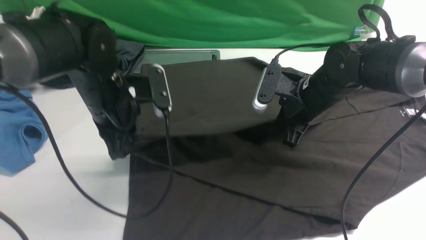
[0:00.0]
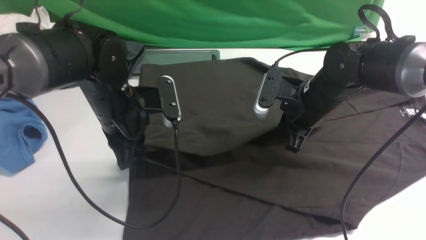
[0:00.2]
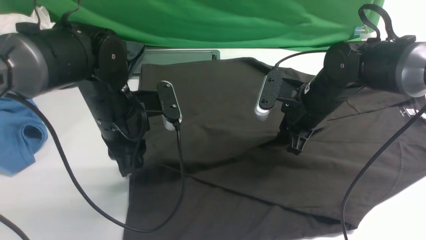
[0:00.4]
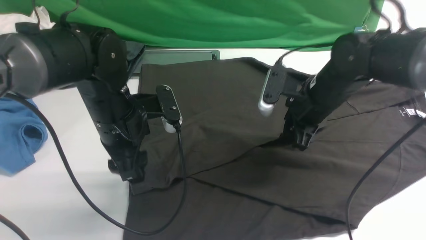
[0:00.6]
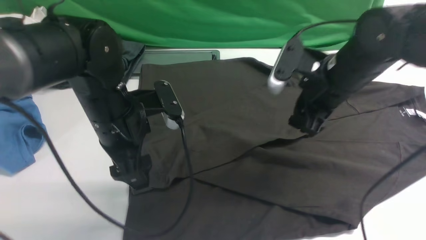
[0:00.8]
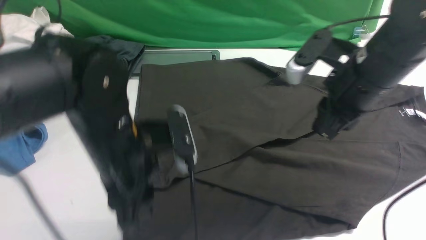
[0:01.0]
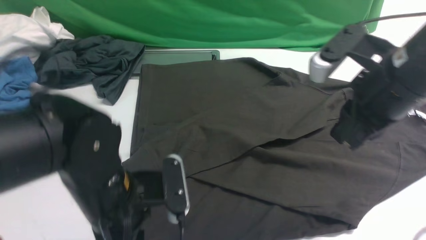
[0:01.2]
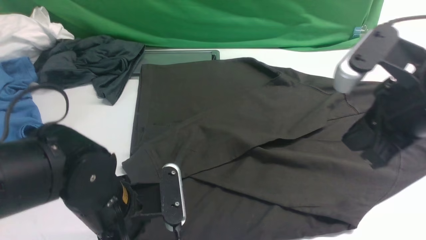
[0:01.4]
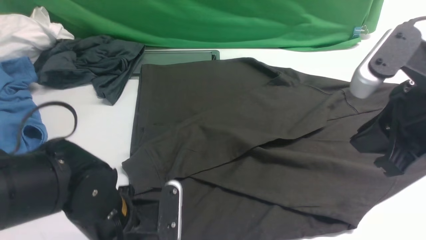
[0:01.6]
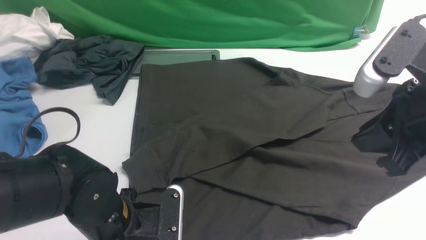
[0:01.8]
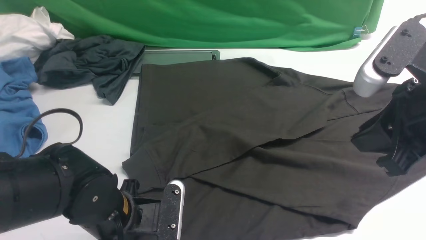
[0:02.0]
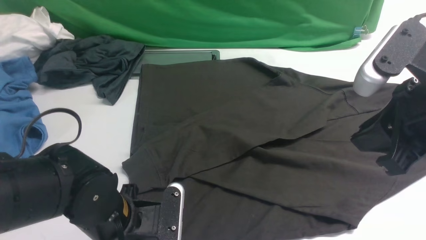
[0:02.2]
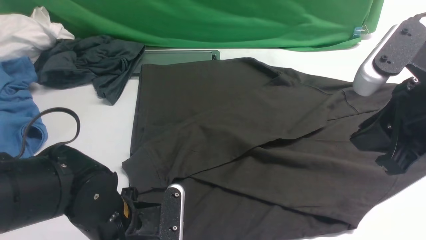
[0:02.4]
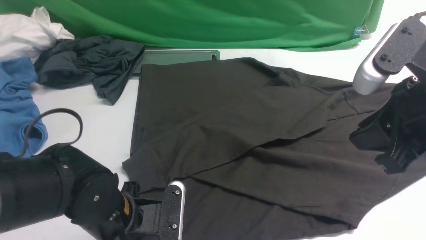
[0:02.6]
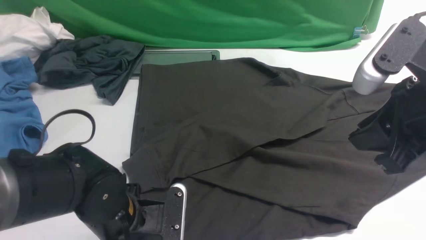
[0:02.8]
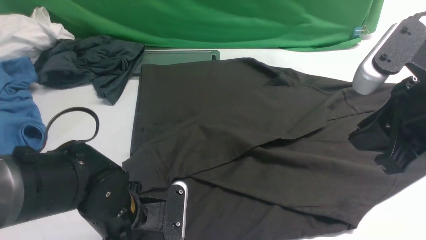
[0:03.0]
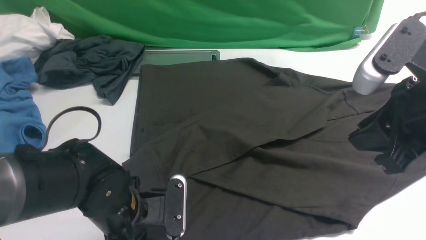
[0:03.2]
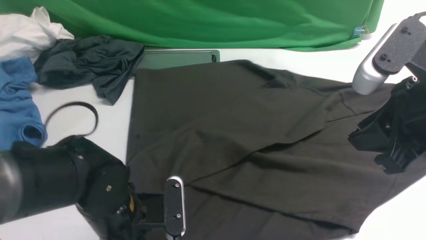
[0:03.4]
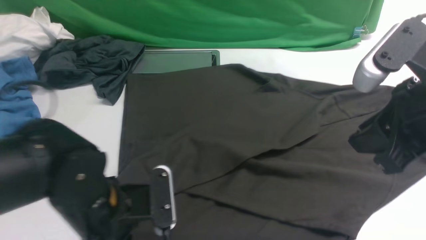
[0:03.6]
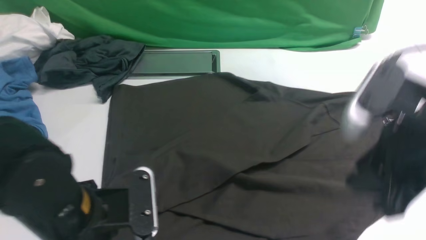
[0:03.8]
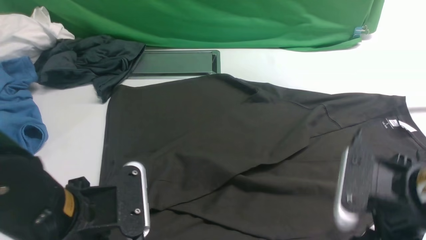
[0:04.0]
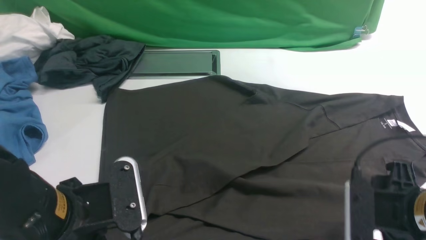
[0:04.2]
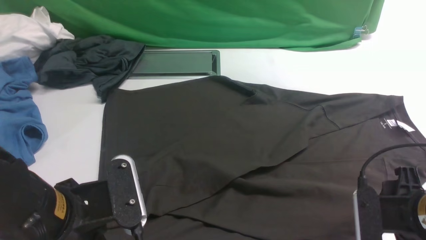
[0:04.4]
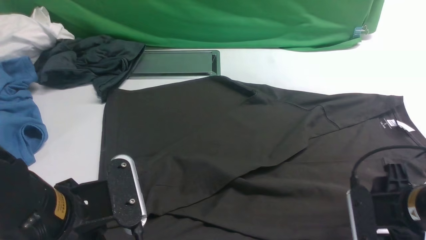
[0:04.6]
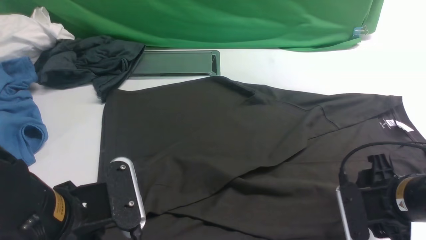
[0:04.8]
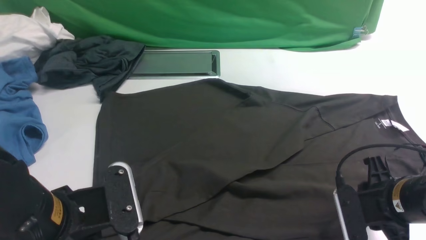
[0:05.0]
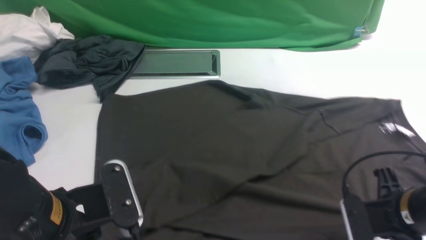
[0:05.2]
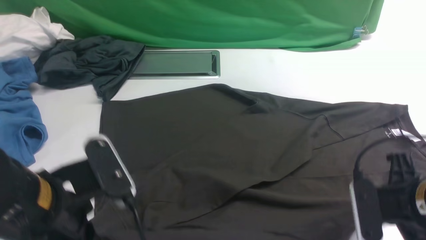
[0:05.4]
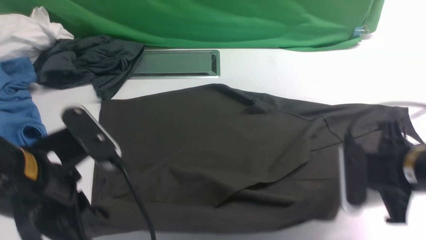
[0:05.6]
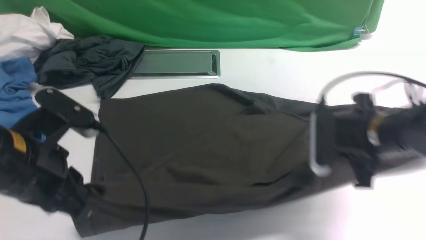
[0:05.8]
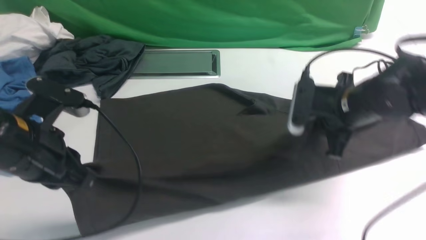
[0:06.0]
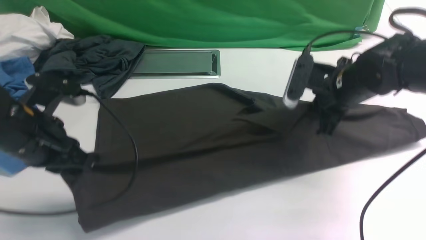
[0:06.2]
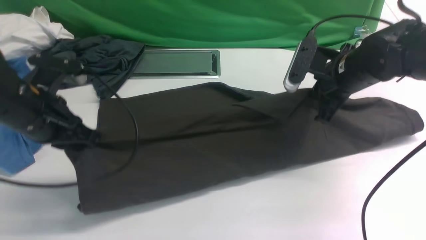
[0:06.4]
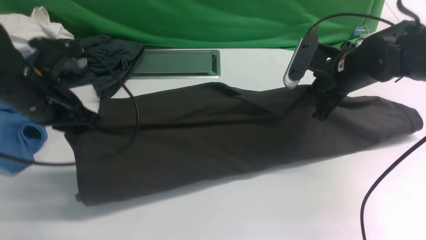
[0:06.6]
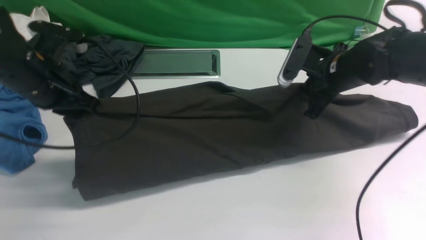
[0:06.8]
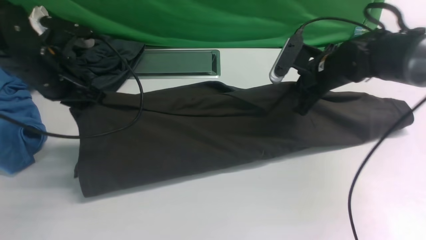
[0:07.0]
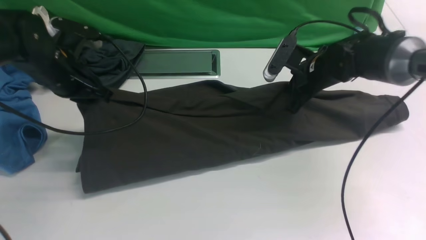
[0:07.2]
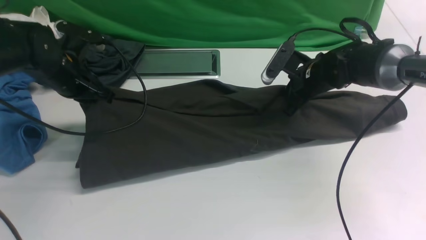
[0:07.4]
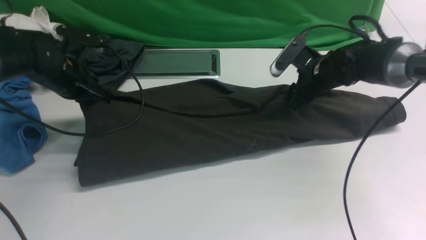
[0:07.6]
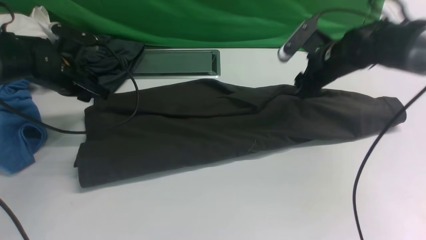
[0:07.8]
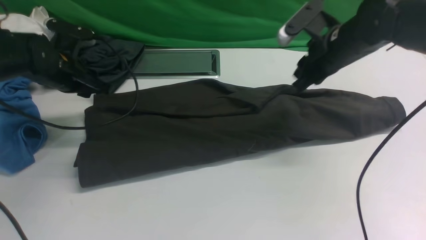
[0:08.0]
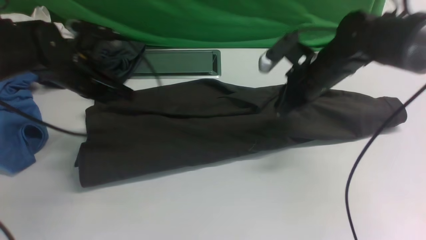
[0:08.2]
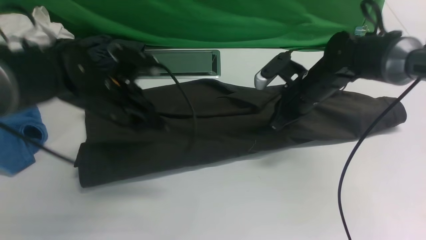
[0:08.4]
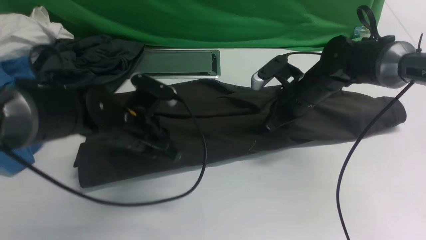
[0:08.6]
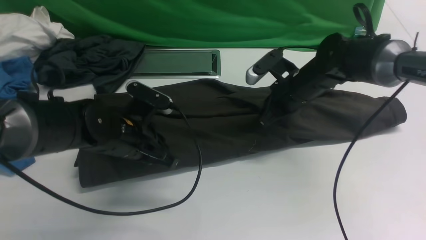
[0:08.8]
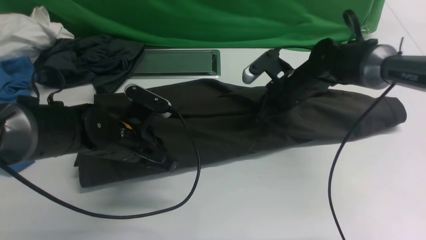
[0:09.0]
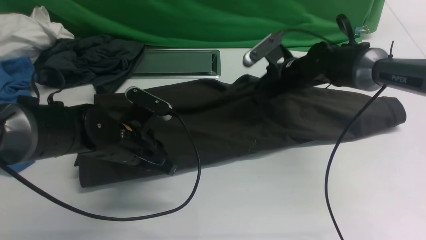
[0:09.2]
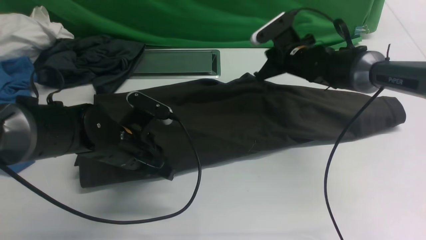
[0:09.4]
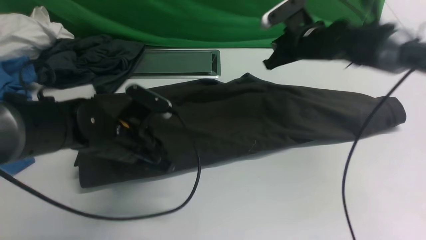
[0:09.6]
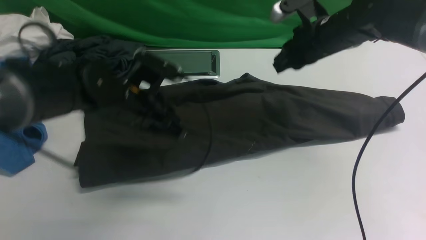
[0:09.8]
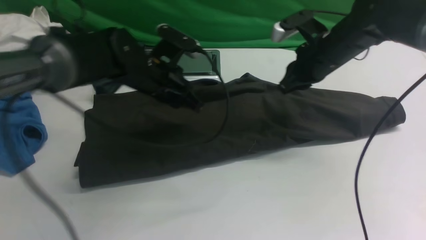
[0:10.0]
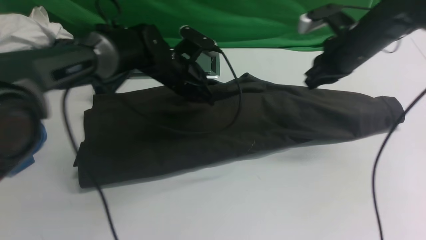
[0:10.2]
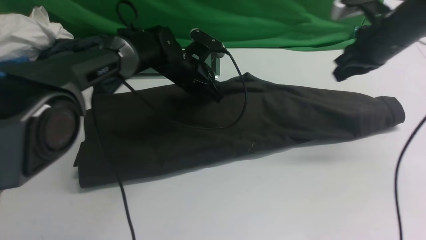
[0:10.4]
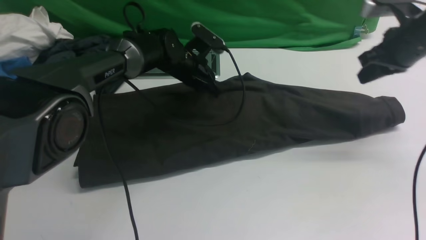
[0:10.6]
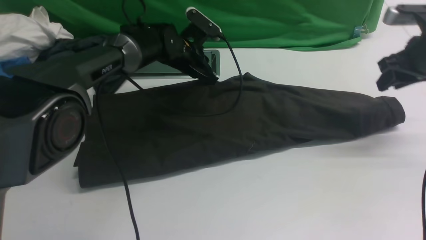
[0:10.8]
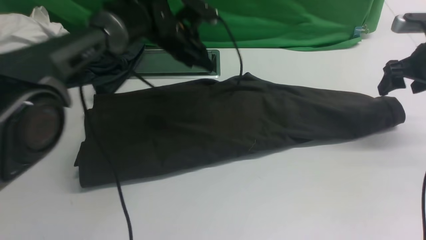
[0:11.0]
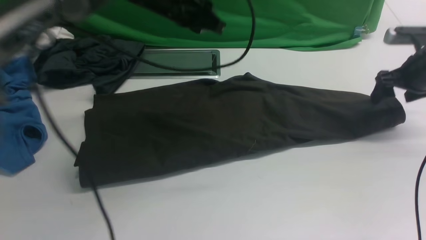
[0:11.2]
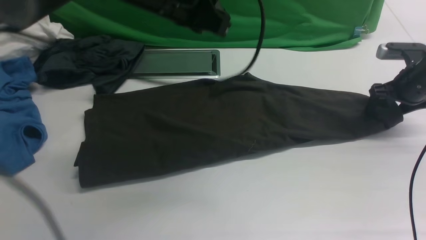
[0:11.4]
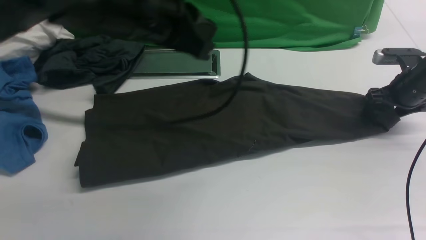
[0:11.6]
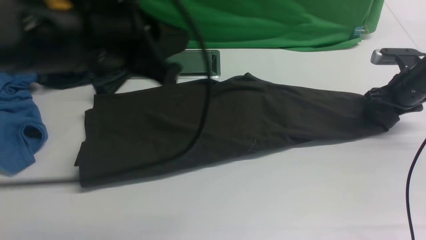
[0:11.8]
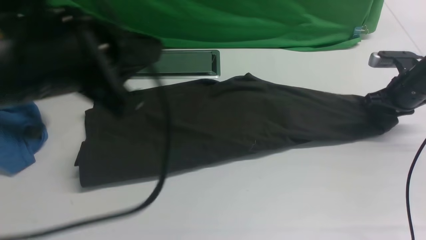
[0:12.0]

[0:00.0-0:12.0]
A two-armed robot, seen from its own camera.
Step, 0:01.0 to 0:05.2: use both arms simultaneously to clamp the lower edge of the clothing fabric.
Step, 0:05.6 to 0:10.8: use both arms to drag the lower edge of the fabric forward and fold it over the upper edge.
0:00.0 to 0:01.6: The left gripper is displaced backward and downward by about 15 cm, and opens its fingers. The right gripper is displaced backward and upward by approximately 25 cm.
0:01.6 to 0:03.0: The left gripper closes up.
0:03.0 to 0:04.4: The right gripper travels downward by roughly 15 cm, and opens up. Meanwhile the left gripper is displaced upward and backward by approximately 10 cm, and closes up.
0:04.4 to 0:06.0: The right gripper is displaced forward by about 15 cm, and closes. Meanwhile the left gripper goes roughly 10 cm forward and to the left.
0:06.0 to 0:07.6: The left gripper shifts about 20 cm forward. The right gripper shifts about 10 cm forward, and opens up.
0:07.6 to 0:09.0: The right gripper moves to the left, roughly 5 cm, and closes its fingers. The left gripper goes roughly 15 cm to the right and backward, and closes its fingers.
0:09.0 to 0:10.4: The right gripper heads to the right and upward, covering roughly 20 cm. The left gripper goes roughly 20 cm forward.
0:10.4 to 0:12.0: The right gripper heads to the right and downward, covering roughly 15 cm, and opens, then closes once more. Meanwhile the left gripper moves backward and upward, approximately 40 cm.

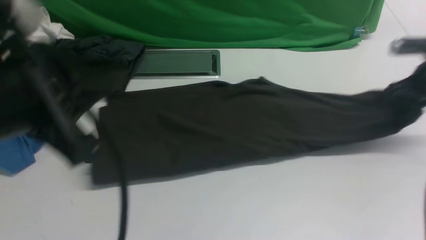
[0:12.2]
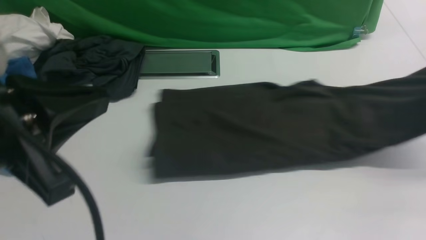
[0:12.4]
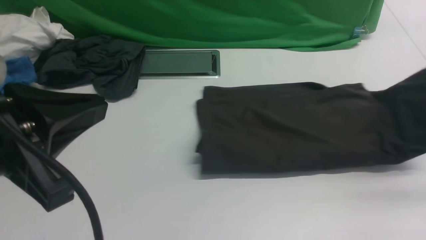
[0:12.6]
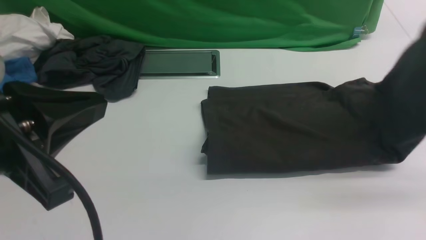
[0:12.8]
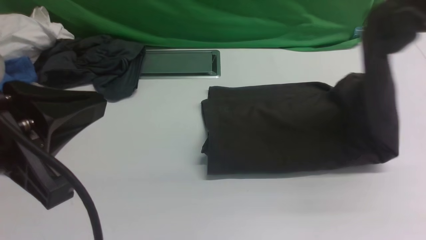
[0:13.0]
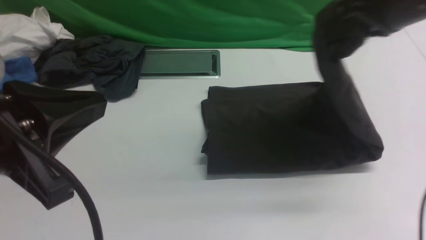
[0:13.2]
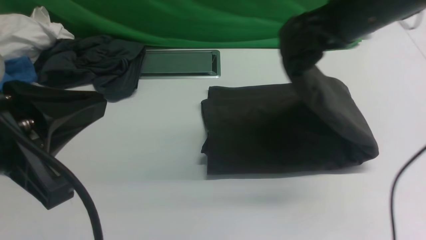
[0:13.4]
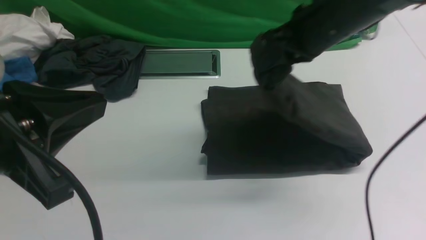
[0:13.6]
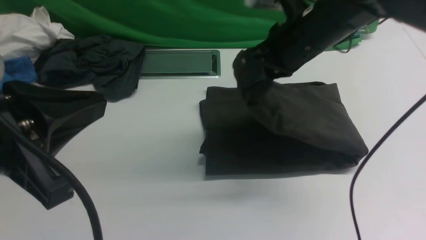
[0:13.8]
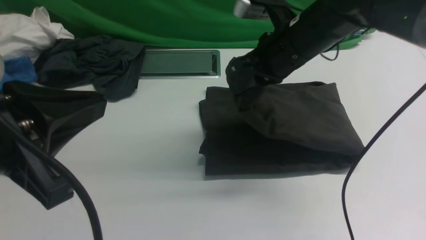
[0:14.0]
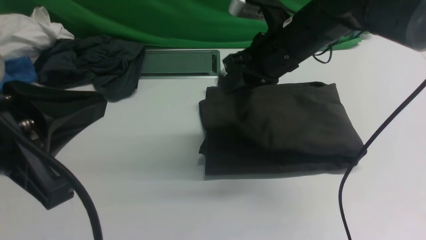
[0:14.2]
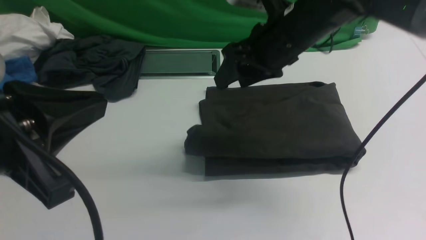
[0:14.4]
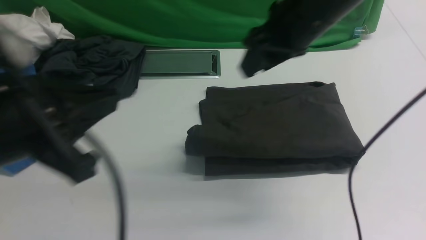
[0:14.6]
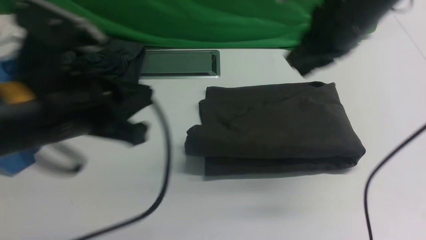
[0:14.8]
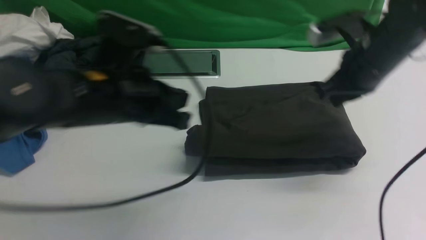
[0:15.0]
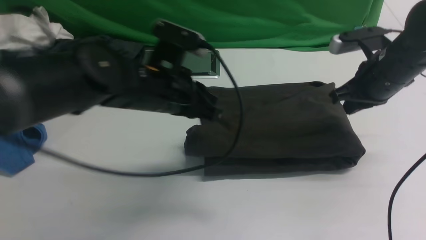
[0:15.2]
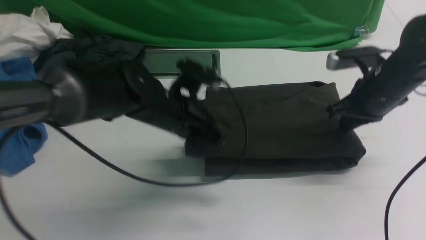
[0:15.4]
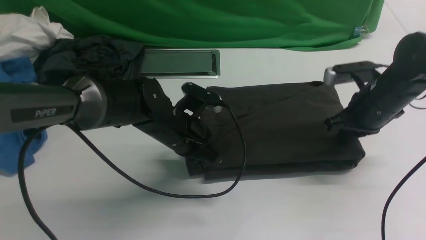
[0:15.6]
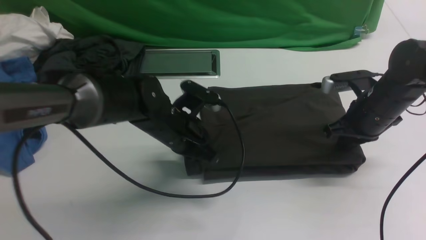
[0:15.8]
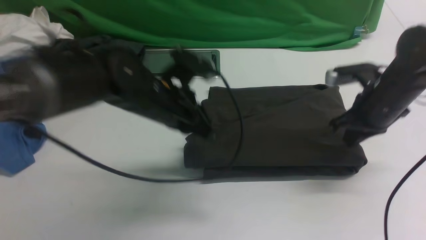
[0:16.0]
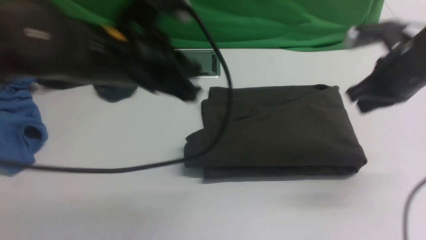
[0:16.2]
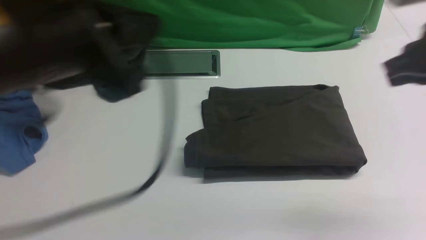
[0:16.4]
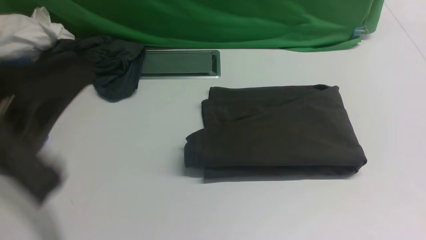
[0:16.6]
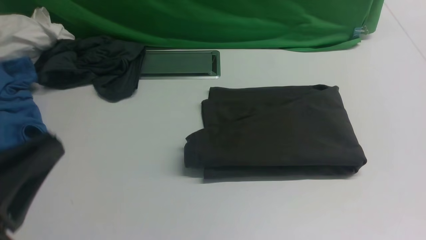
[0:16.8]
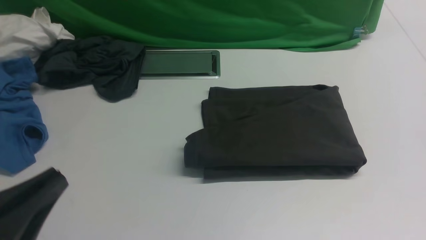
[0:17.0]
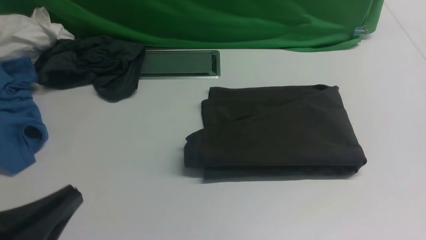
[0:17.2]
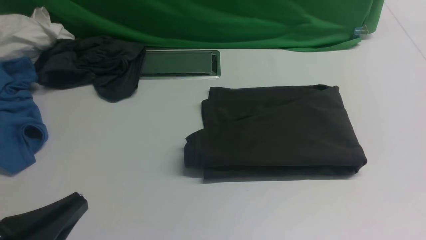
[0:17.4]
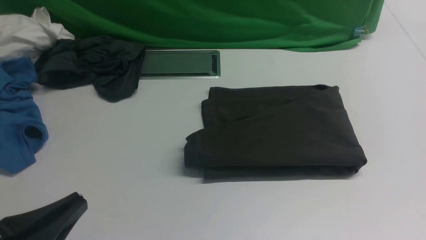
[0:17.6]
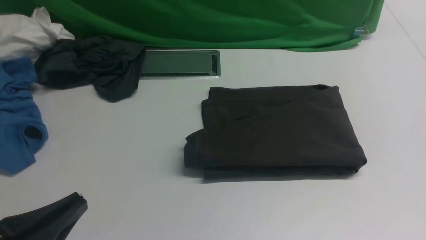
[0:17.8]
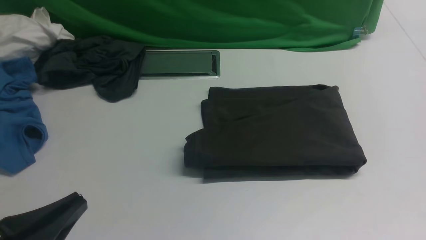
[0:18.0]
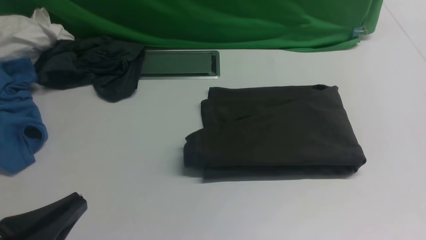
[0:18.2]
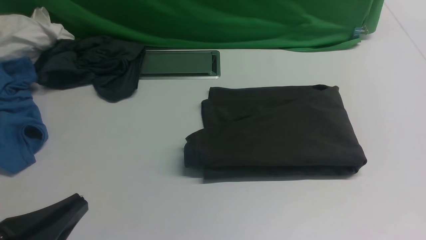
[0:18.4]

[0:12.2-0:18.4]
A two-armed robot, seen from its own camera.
Step, 0:12.2 to 0:14.2: use the right arm to drag the right edge of the fabric to the left and folds it over the left edge.
0:12.2 to 0:13.8: The right gripper goes roughly 30 cm to the left.
0:13.8 to 0:15.4: The right gripper goes roughly 15 cm to the right and downward, and opens and closes again, while the left gripper travels forward, downward and to the right by roughly 30 cm.
0:15.4 to 0:16.8: The right gripper goes about 30 cm backward and upward; the left gripper moves backward, to the left and upward, some 30 cm.
0:16.8 to 0:18.4: The left gripper heads downward, covering about 5 cm.
